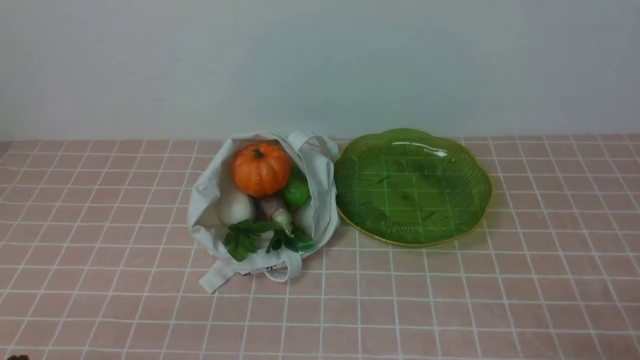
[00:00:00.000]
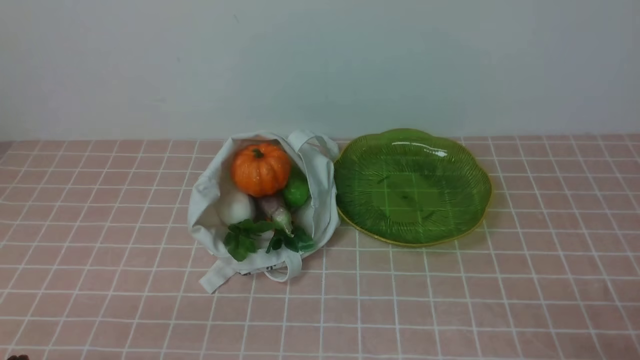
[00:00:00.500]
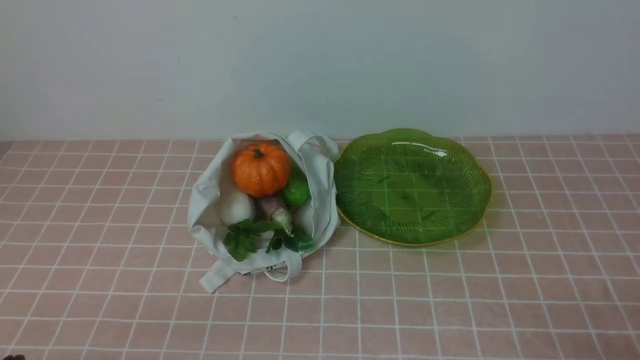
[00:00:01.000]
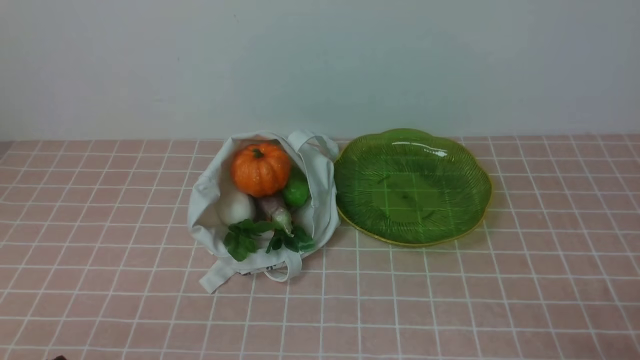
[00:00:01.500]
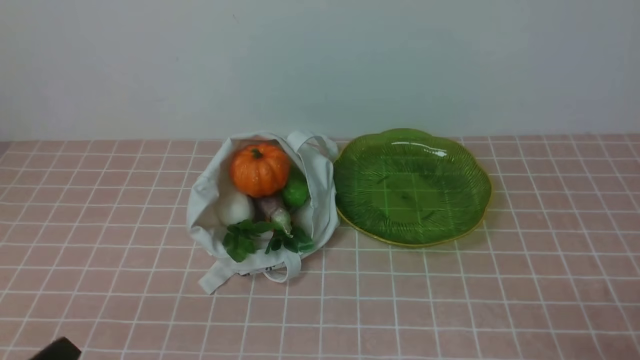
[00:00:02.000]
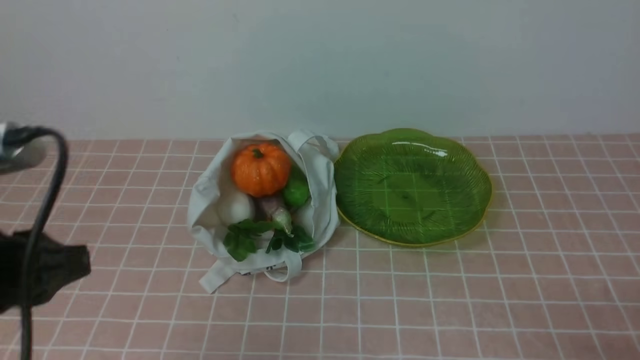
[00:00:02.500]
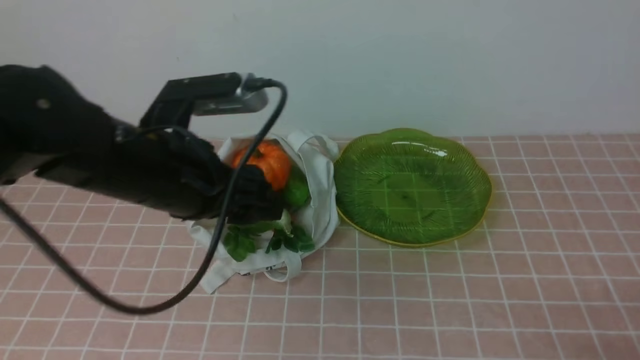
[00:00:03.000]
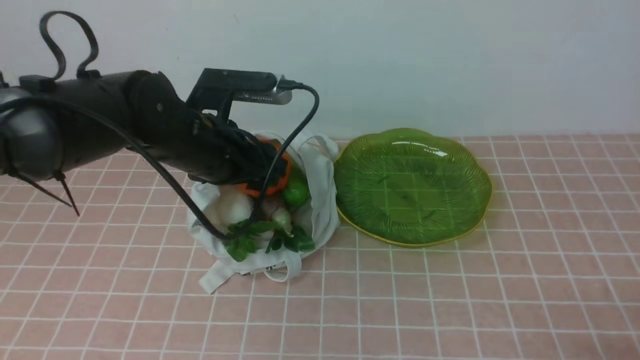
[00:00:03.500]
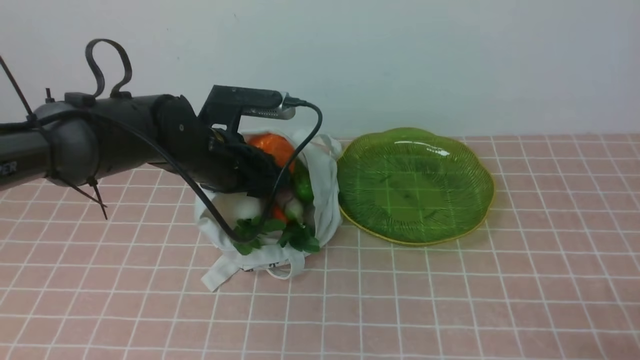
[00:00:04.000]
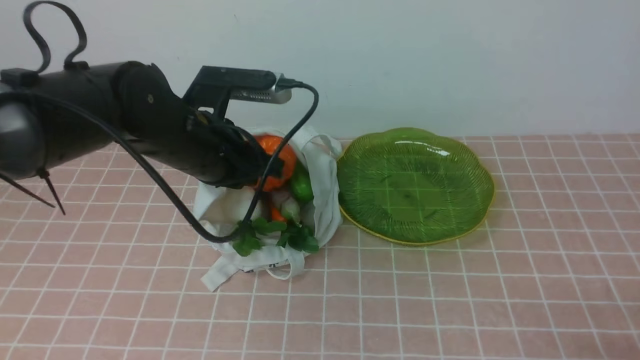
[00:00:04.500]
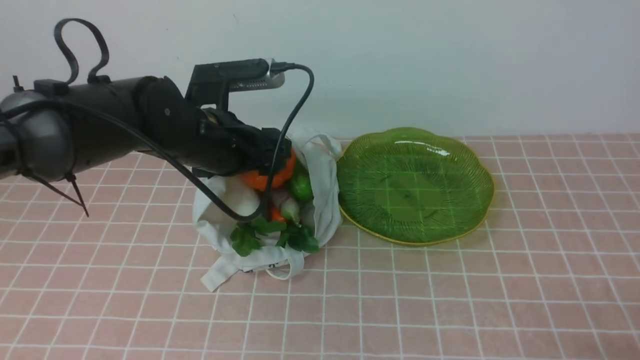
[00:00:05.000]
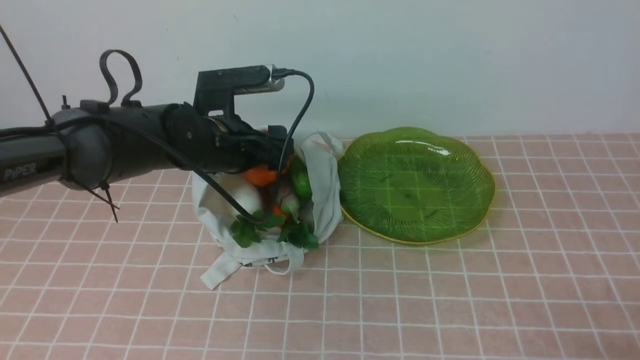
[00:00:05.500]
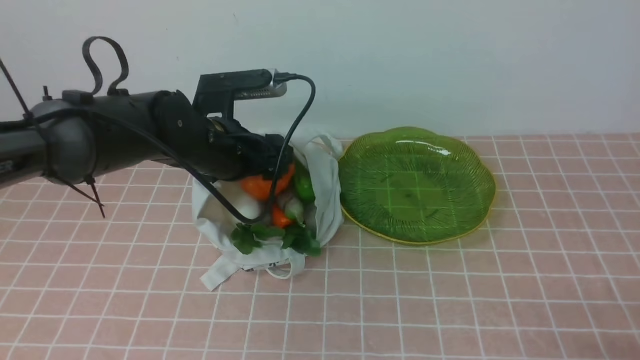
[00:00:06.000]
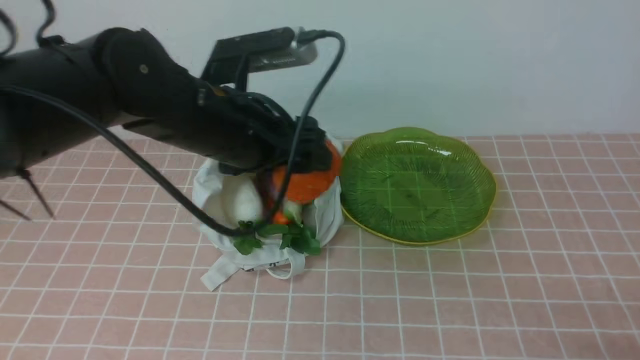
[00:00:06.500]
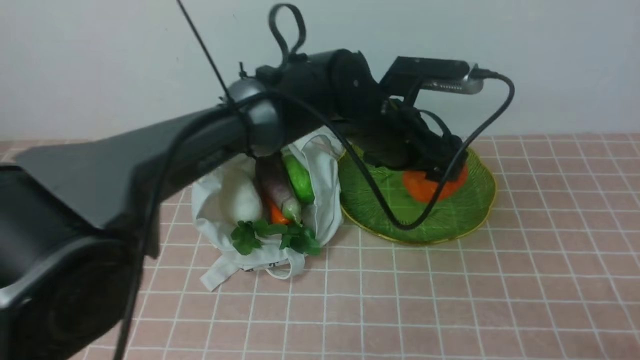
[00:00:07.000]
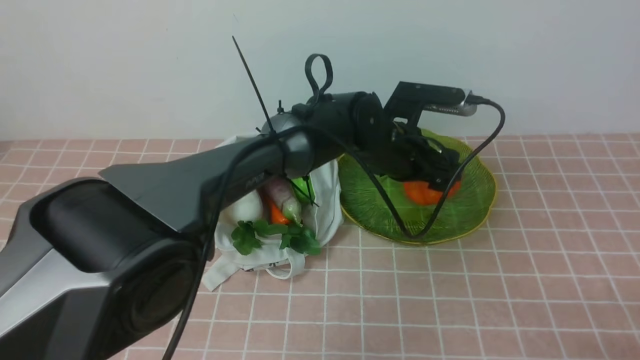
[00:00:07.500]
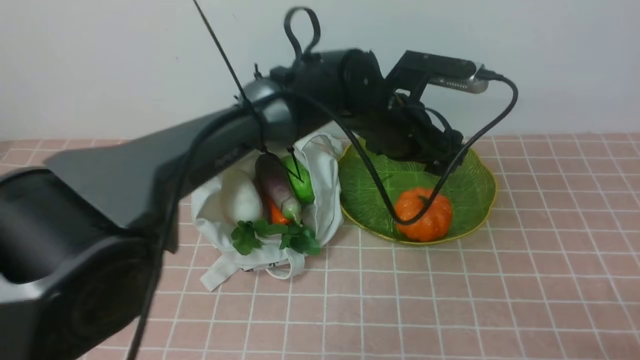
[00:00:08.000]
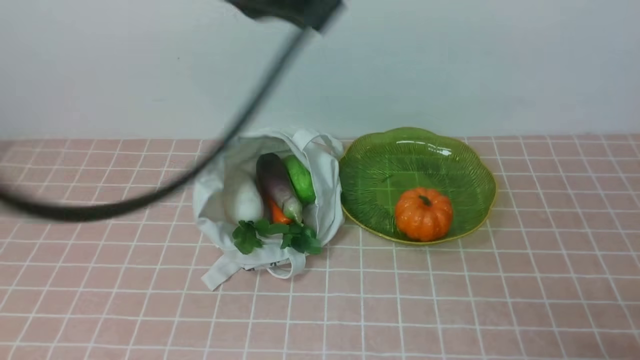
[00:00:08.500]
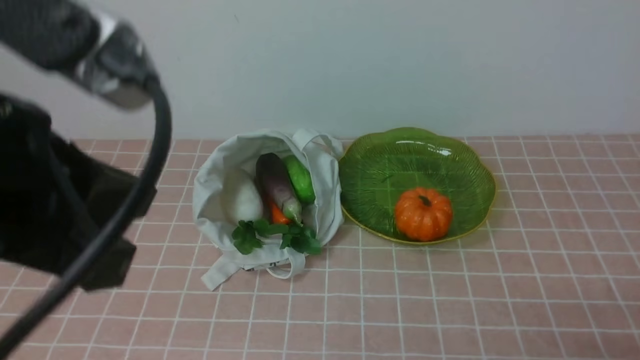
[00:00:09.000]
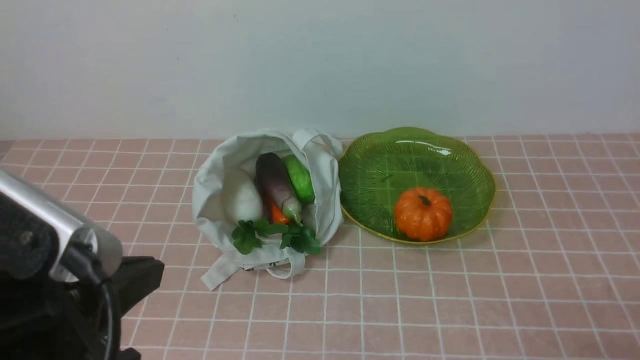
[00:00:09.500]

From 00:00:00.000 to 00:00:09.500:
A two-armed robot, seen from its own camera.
Task of the whole recording: take vegetables from bag on pink coffee tablecloth place on plate.
Step, from 00:00:00.000 to 00:00:05.500: Grasp the pumpkin with left gripper.
Step, from 00:00:06.000 to 00:00:08.000: Place the pumpkin on the plate with left gripper.
From 00:00:02.000 to 00:00:04.000: The left gripper moves forward, approximately 30 cm, and opens its fingers.
From 00:00:04.000 to 00:00:05.500: The left gripper opens.
From 00:00:05.500 to 00:00:07.500: The left gripper heads to the right, covering some 20 cm.
From 00:00:07.500 to 00:00:09.500: The left gripper travels backward, to the left and upward by about 40 cm, and closes up.

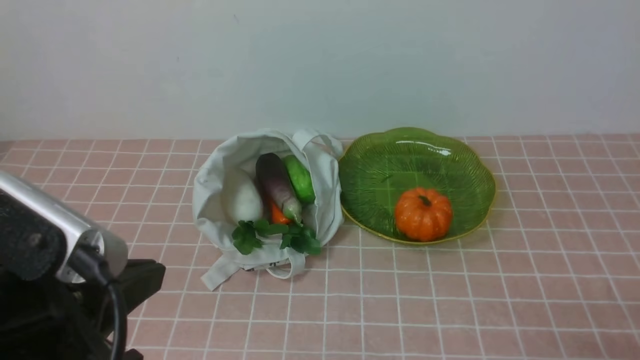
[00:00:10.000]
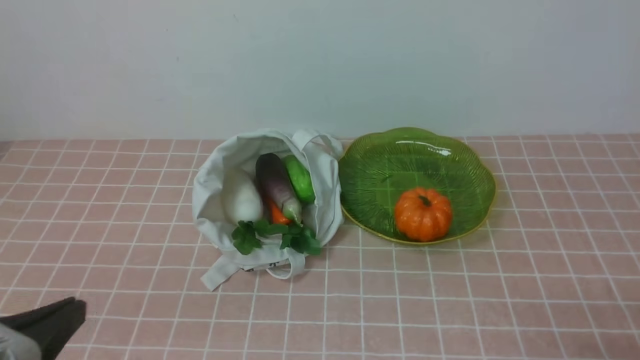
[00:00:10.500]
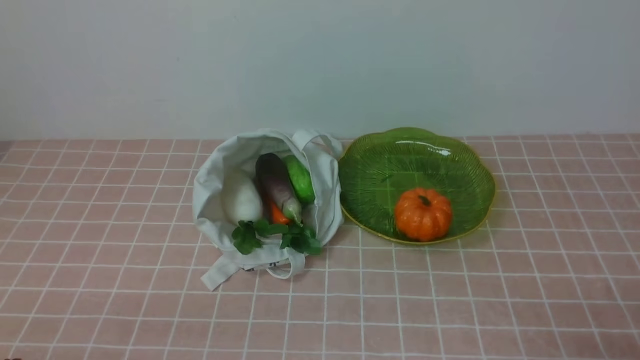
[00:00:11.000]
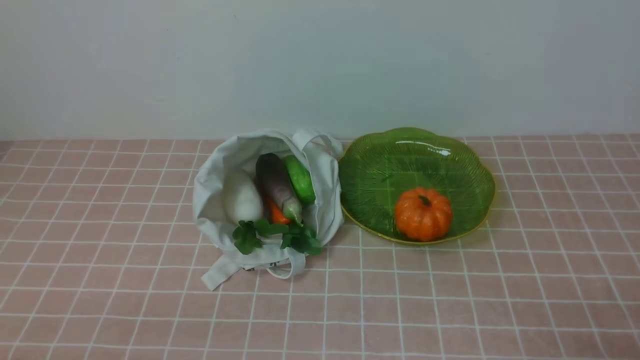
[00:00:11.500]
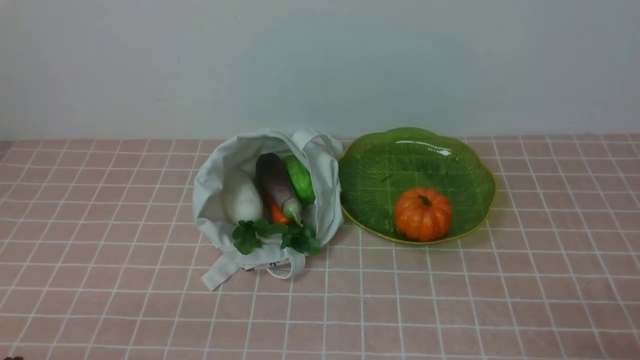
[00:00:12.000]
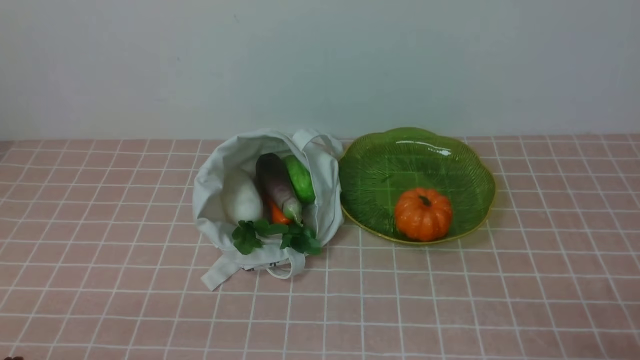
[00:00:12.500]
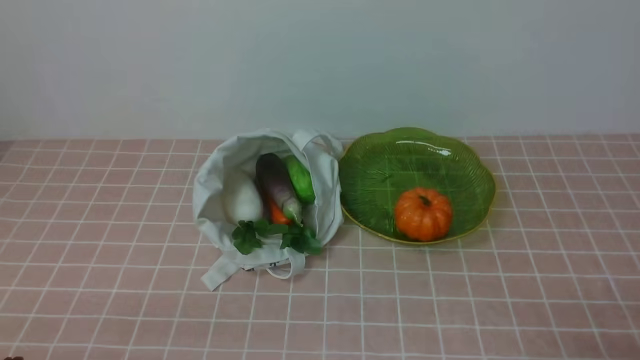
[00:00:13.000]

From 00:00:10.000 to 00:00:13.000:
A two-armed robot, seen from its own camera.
Task of the whole recording: take vegetables from bag on pink coffee tablecloth place on plate.
From 00:00:10.000 to 00:00:11.500: The left gripper is displaced downward and to the left by approximately 15 cm.
From 00:00:11.500 to 00:00:13.000: Both grippers stay put.

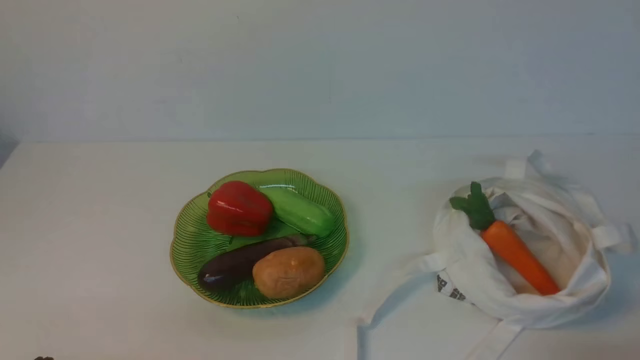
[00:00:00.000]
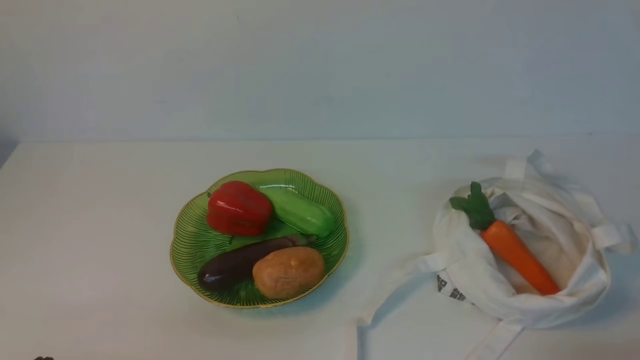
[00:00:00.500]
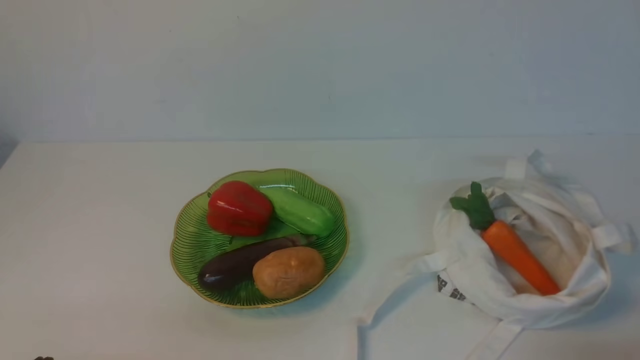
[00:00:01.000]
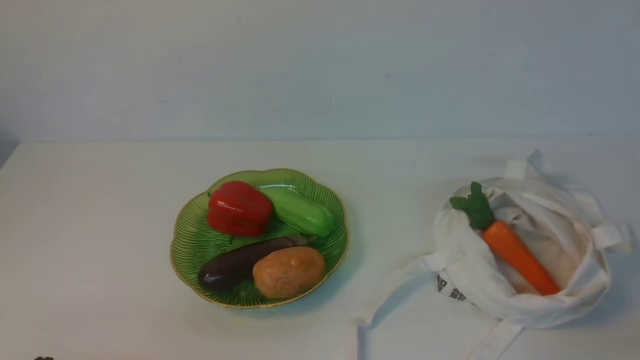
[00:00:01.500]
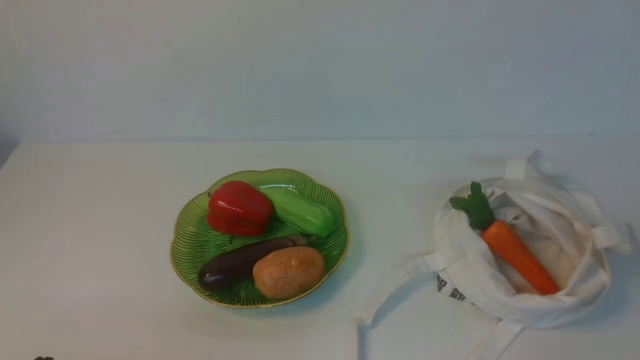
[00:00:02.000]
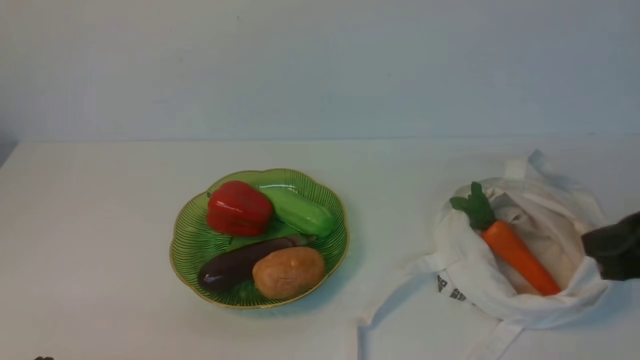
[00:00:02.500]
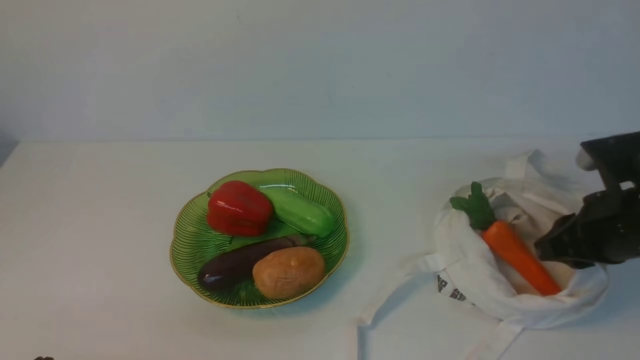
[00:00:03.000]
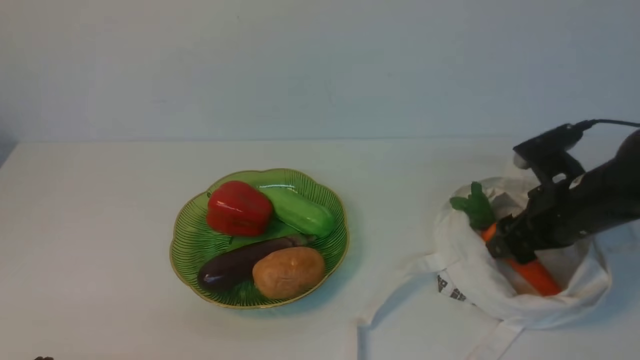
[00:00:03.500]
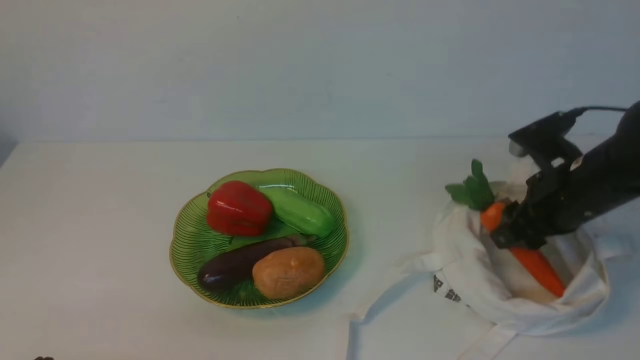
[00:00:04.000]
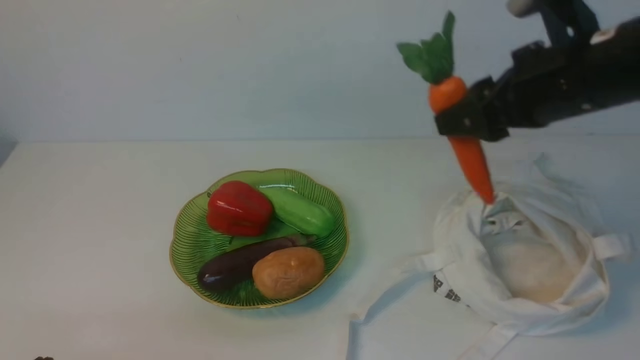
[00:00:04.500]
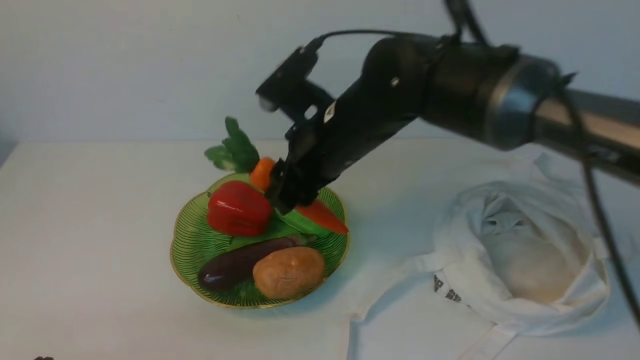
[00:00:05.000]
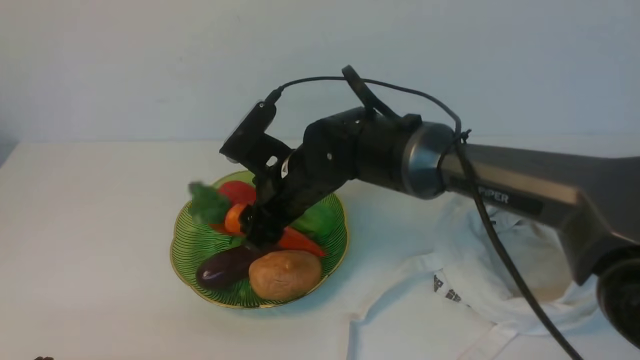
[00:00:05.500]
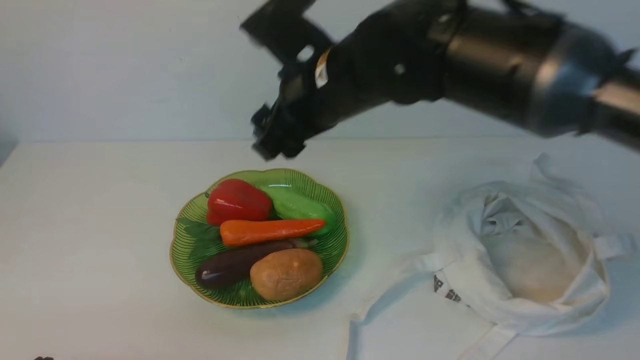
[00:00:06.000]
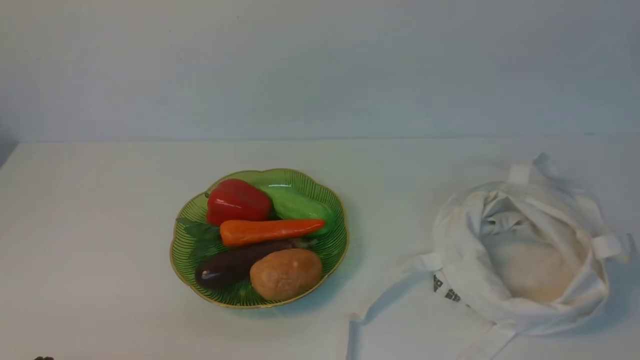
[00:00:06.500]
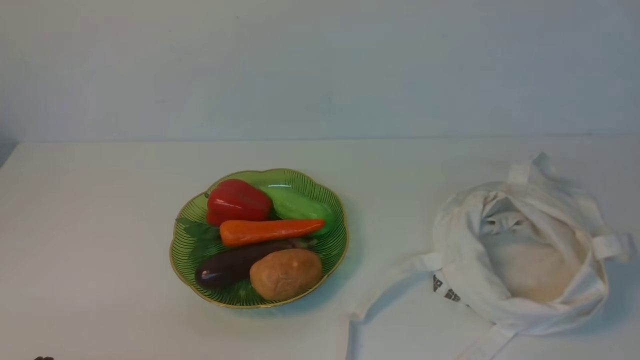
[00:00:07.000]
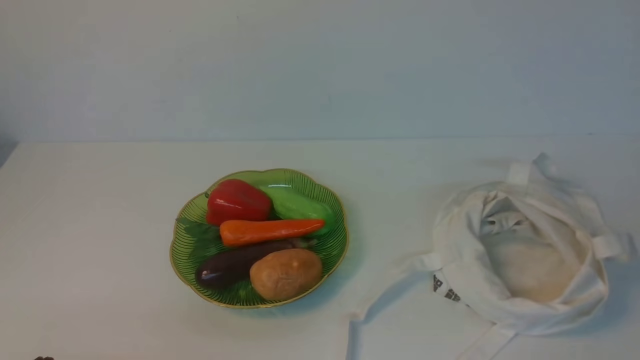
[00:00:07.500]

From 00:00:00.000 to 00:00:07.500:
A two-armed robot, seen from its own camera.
Task of the whole recording: take vegetables from cloth bag on white table place on plate.
Step, from 00:00:00.000 to 00:00:03.500: Grasp the carrot with right gripper.
Step, from 00:00:04.000 to 00:00:05.500: Place the carrot on the plate with right gripper.
From 00:00:02.000 to 00:00:04.000: The right gripper moves forward, roughly 25 cm, and opens up.
From 00:00:04.000 to 00:00:05.500: The right gripper shifts approximately 25 cm to the left.
From 00:00:05.500 to 00:00:07.500: The right gripper heads to the right, backward and upward, covering approximately 50 cm, and closes up.
